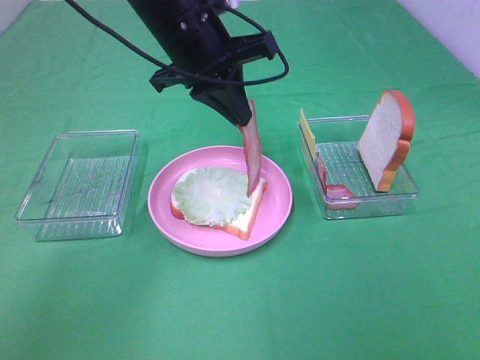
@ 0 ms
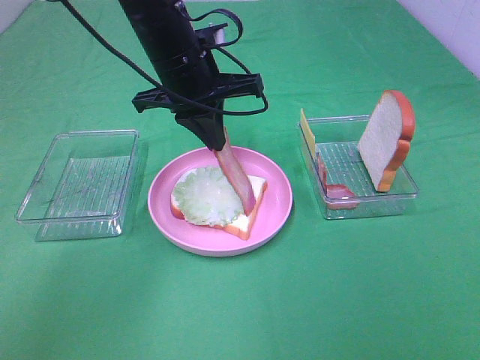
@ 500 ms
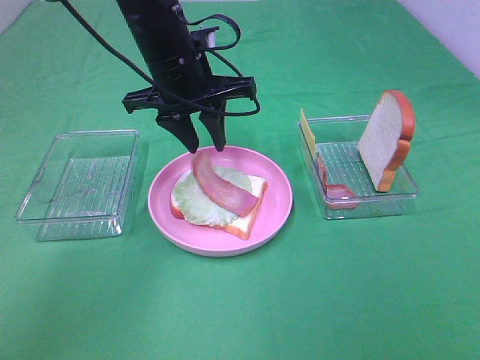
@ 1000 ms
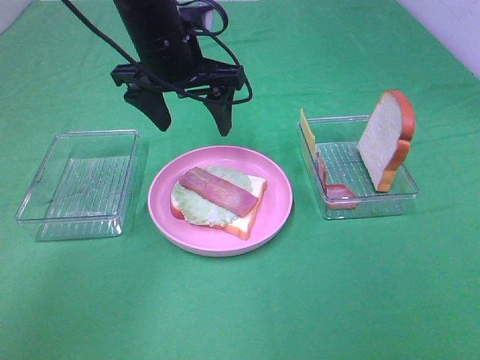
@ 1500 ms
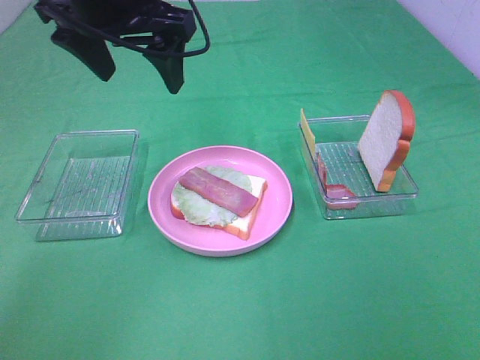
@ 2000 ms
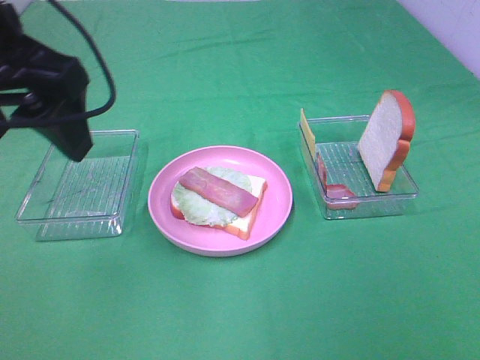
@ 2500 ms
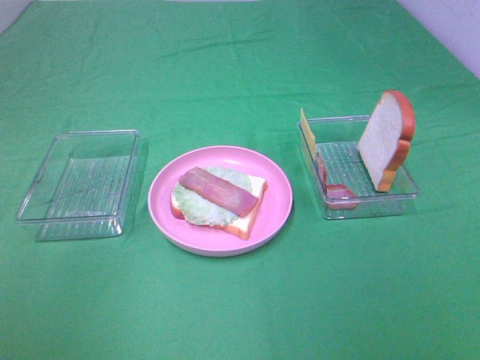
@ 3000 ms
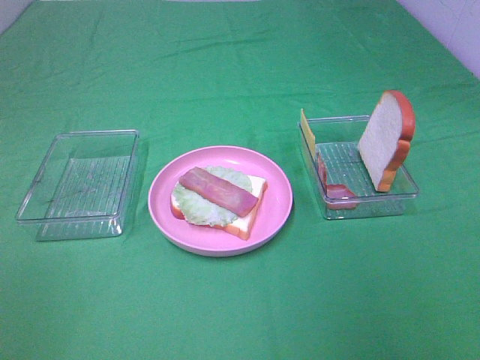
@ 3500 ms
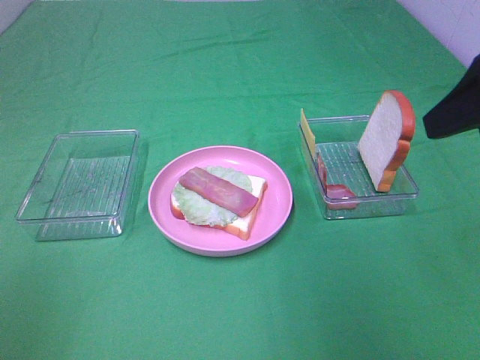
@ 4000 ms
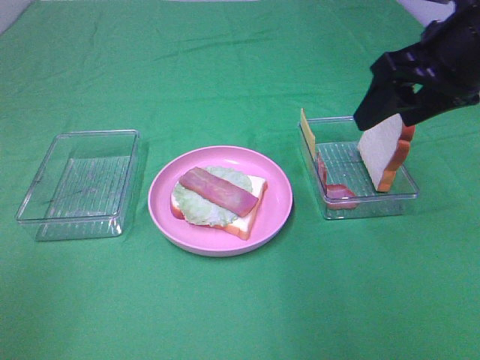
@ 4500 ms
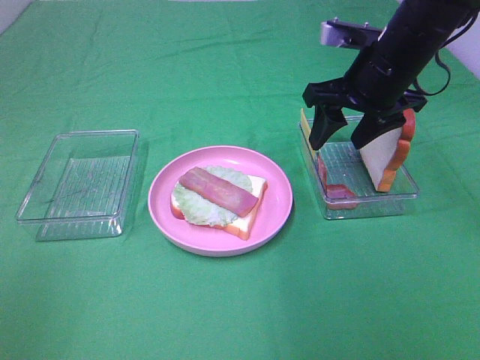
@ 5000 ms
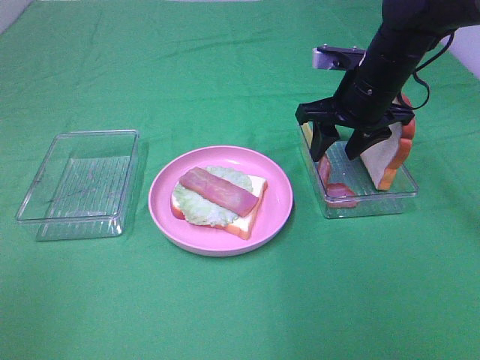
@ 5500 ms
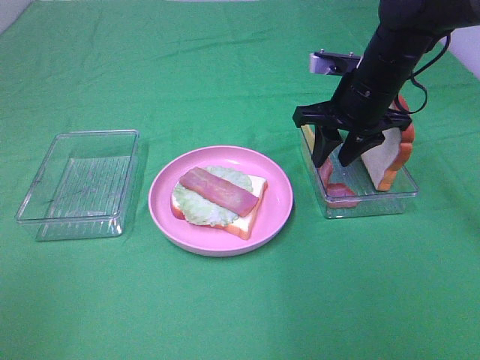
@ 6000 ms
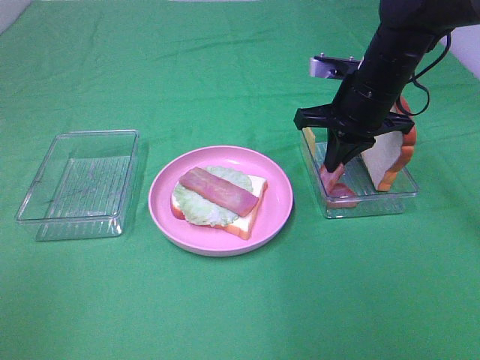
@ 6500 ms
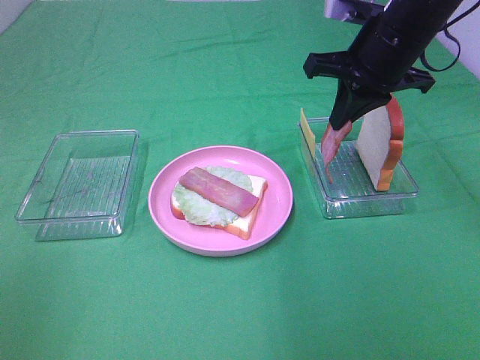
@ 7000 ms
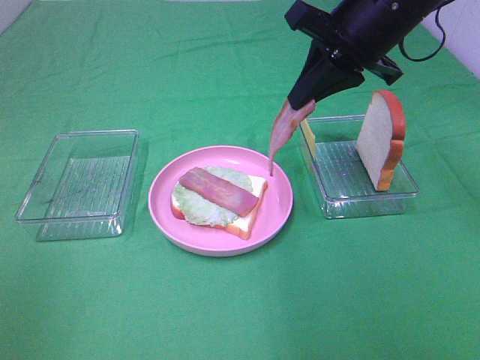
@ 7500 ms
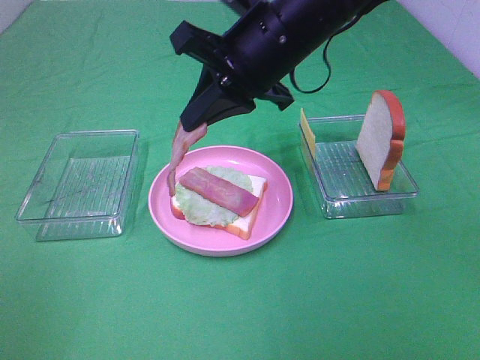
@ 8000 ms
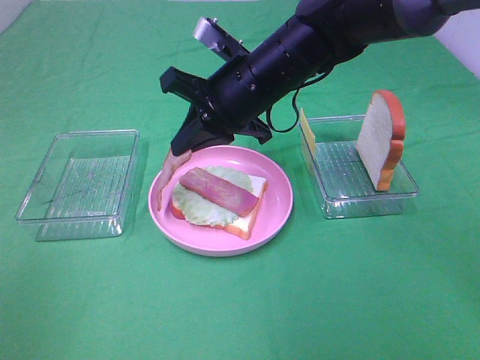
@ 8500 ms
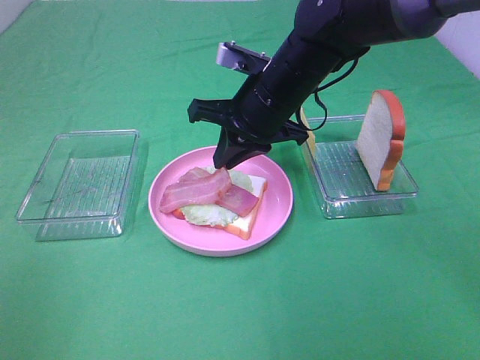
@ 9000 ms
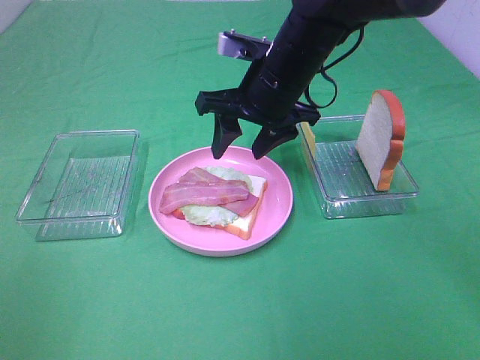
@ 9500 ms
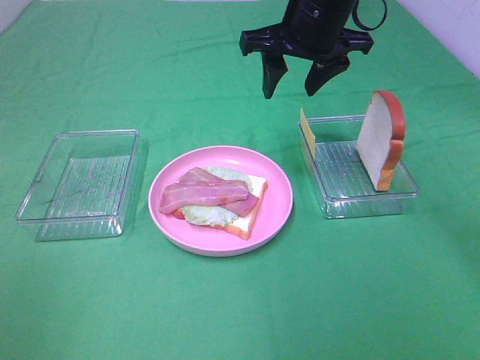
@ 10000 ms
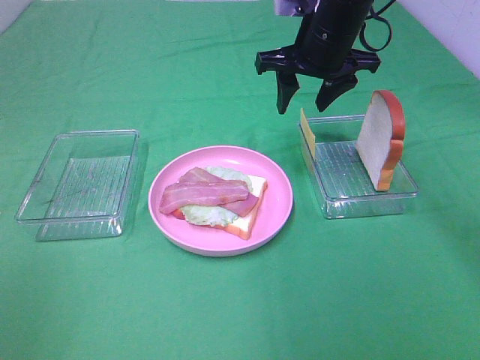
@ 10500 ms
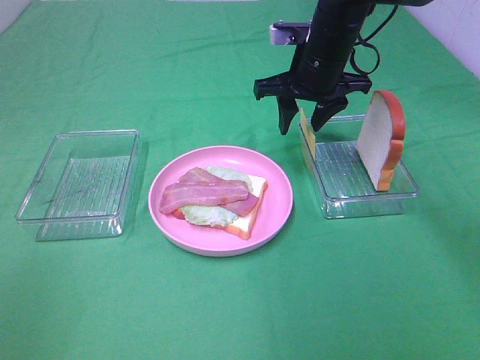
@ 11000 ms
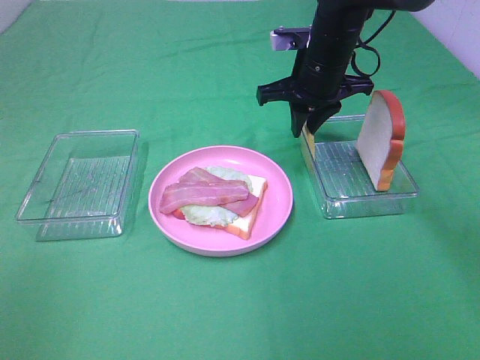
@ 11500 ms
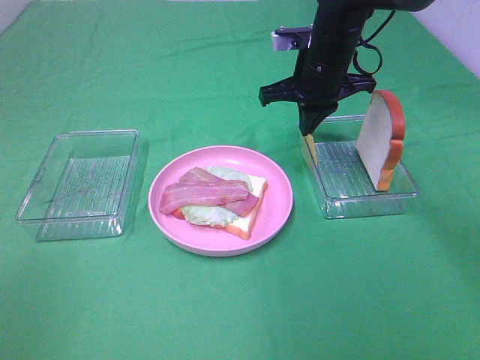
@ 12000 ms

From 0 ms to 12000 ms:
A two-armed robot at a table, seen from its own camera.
Task of the whole recording: Make sandwiches.
Step, from 1500 ms to 6500 ms: Right hand:grab the bacon.
Step, from 7000 ms to 9500 ms: Right hand:place bacon on bacon.
Step, from 10000 ms to 11500 ms: Right hand:grab the cheese slice.
From 0 ms to 2000 ms: The left gripper travels upward and to the left by about 10 cm, and opens.
From 2000 ms to 4000 ms: The right gripper heads forward, covering approximately 20 cm, while the left gripper moves backward and to the left, about 40 cm.
From 4000 ms to 6000 ms: The right gripper moves forward, downward and to the left, about 25 cm.
From 6000 ms to 8000 ms: The right gripper goes some 15 cm to the left, upward and backward, and closes.
From 8000 ms to 10000 ms: The right gripper is displaced forward and to the right by roughly 10 cm, moves approximately 10 cm downward and comes back, and opens up.
From 10000 ms to 12000 ms: The right gripper moves downward, about 10 cm, and closes its fingers.

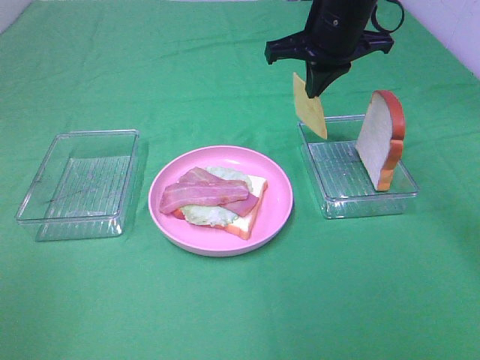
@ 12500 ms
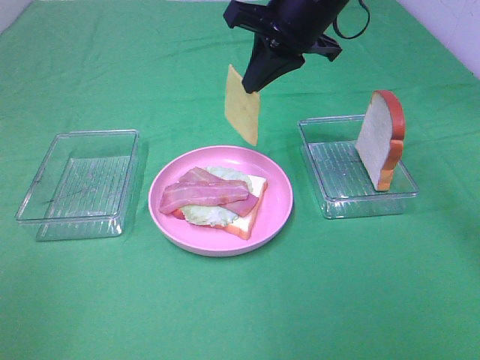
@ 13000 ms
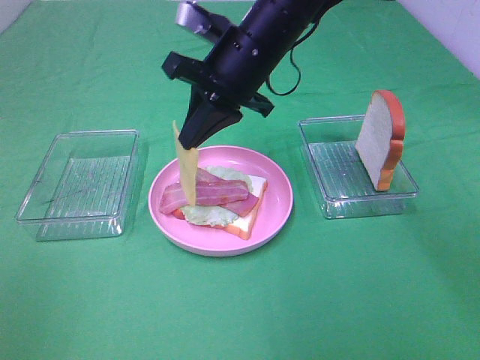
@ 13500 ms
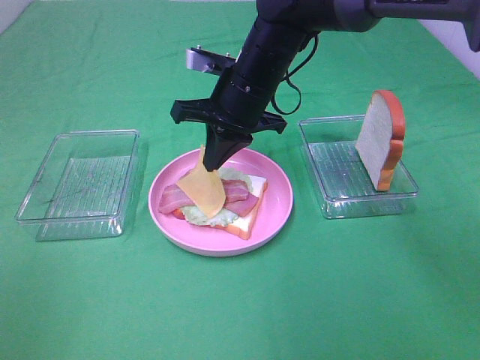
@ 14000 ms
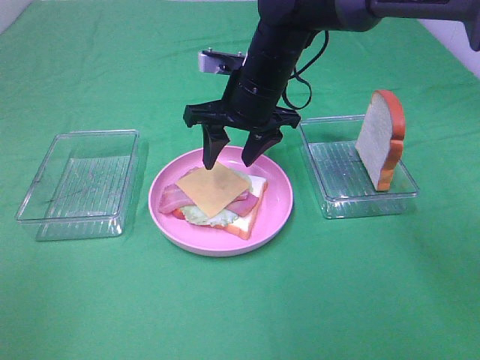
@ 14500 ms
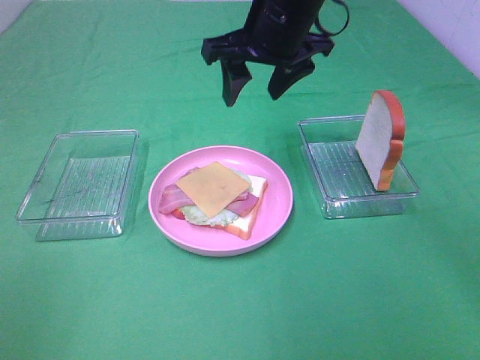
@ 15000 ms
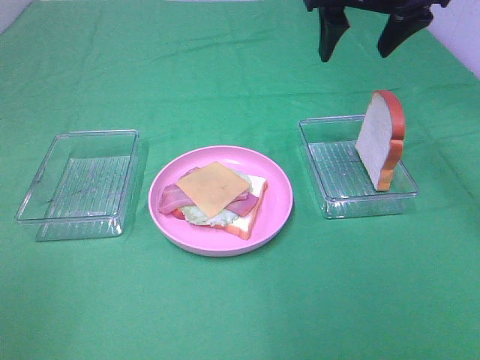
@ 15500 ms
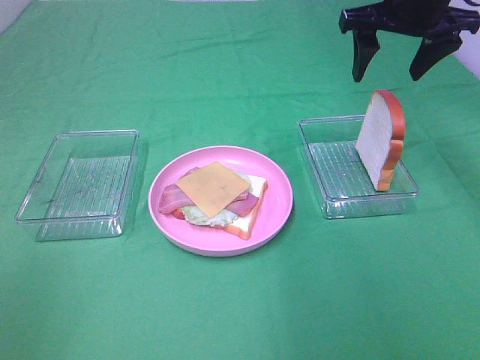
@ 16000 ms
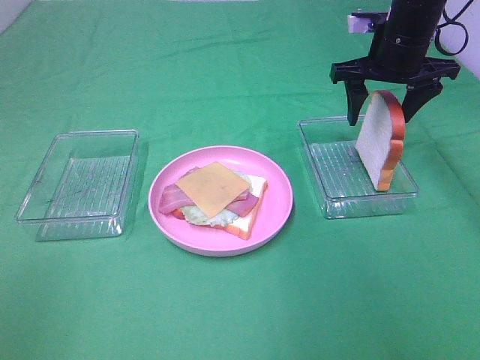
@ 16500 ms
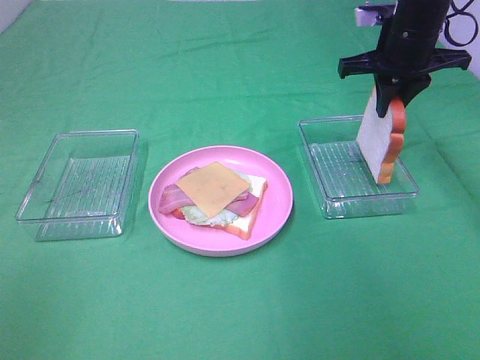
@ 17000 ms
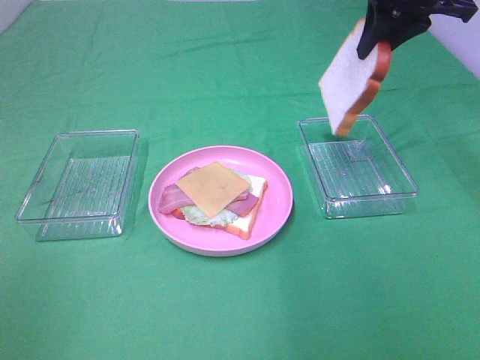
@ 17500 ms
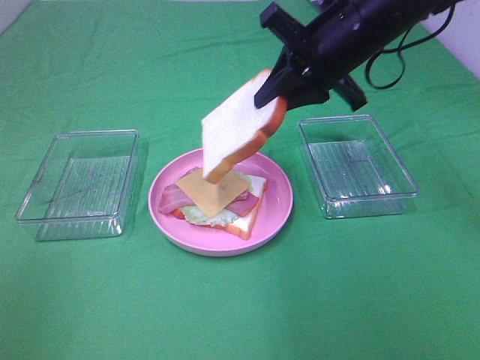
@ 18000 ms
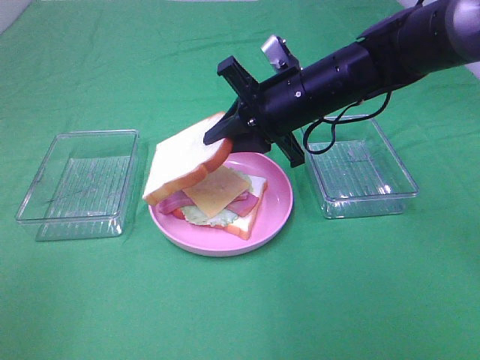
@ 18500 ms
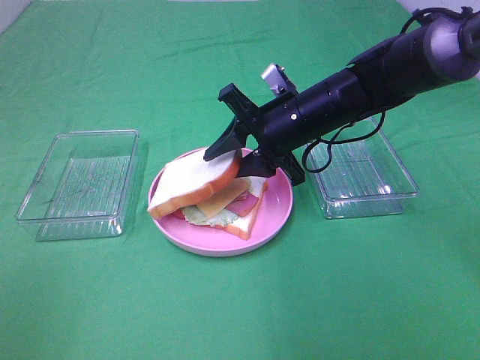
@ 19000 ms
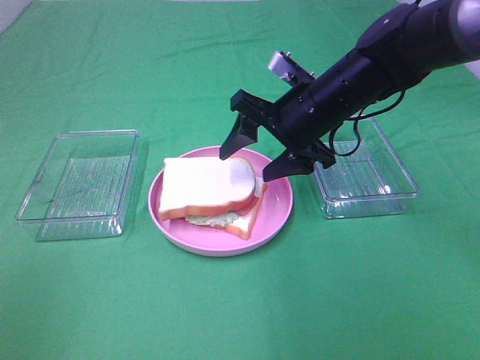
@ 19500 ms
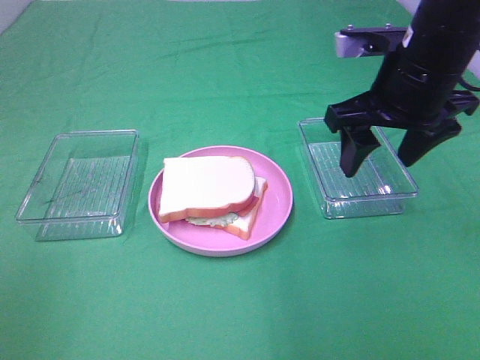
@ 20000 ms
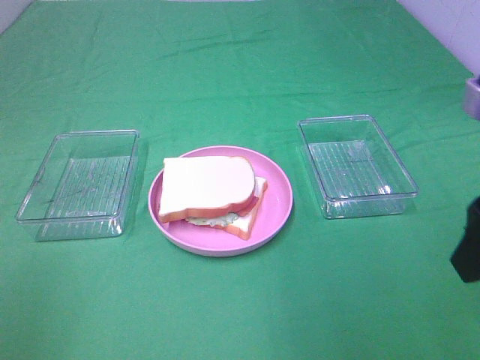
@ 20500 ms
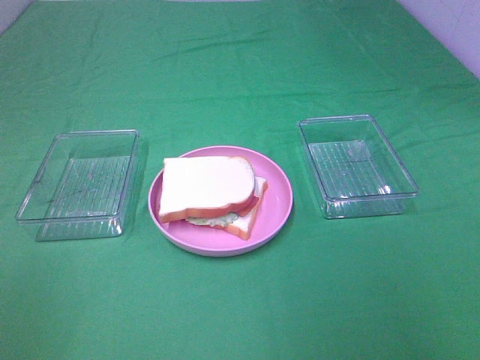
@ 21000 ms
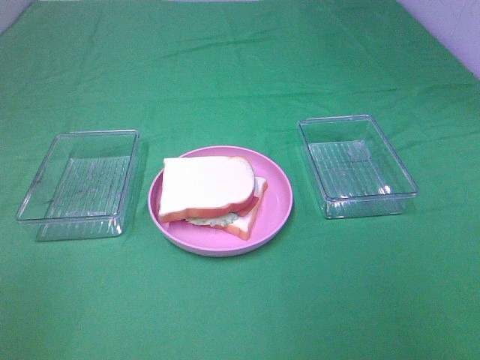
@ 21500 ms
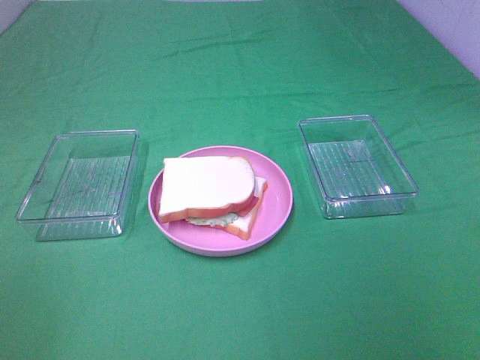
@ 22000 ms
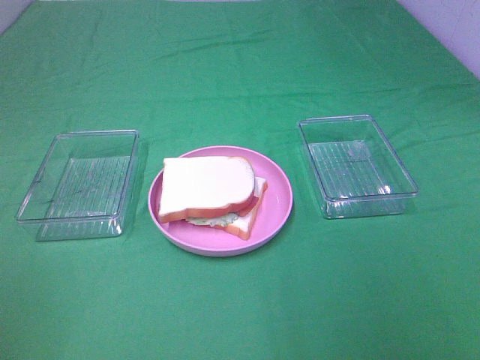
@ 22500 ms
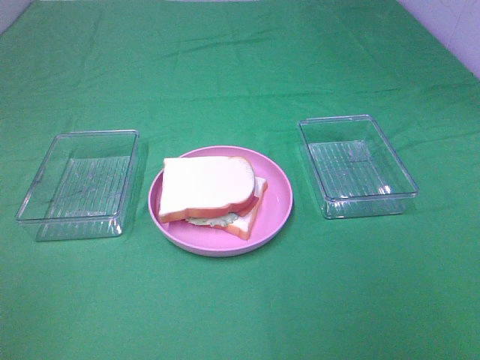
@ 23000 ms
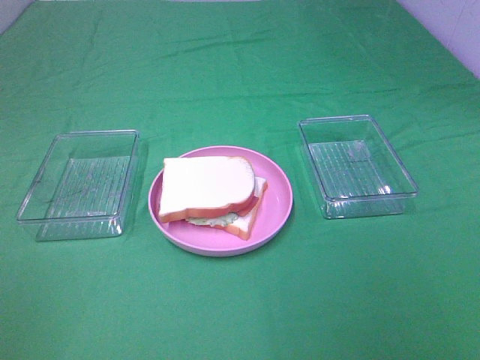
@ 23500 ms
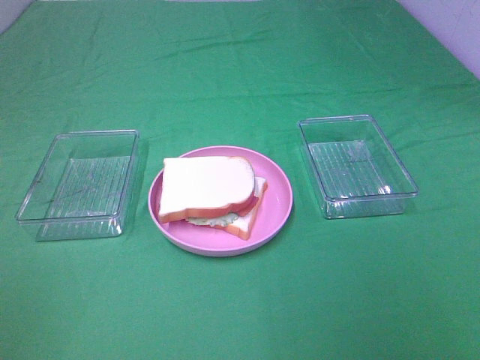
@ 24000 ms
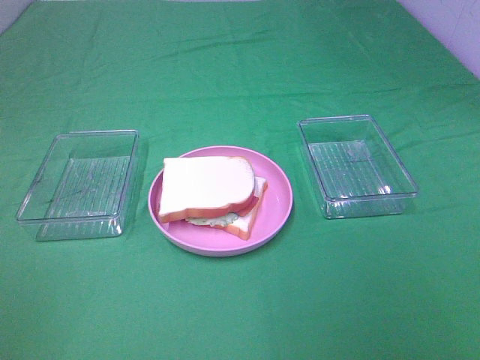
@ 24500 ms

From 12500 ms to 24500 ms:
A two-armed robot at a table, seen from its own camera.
Task of the whole recording: Make sandwiches.
Step, from 12500 ms to 14500 ms: Right hand:place the cheese slice on top of the bacon.
Step, from 15000 ms to 17000 ms: Right hand:grab the bread slice.
Step, from 17500 ms to 19500 ms: Right hand:place the bread slice on the cheese slice.
From 12500 ms to 14500 ms: The right gripper is displaced to the left and downward by about 10 cm, and opens.
From 14500 ms to 16500 ms: The right gripper goes approximately 20 cm to the right.
From 16500 ms to 18500 ms: The right gripper travels to the left and backward by approximately 15 cm, goes upward and returns, approximately 10 cm each way, and closes its fingers.
From 18500 ms to 20500 ms: The right gripper goes roughly 30 cm backward, to the right and upward, and opens.
From 20500 ms to 22500 ms: The right gripper travels backward and to the right by roughly 15 cm.

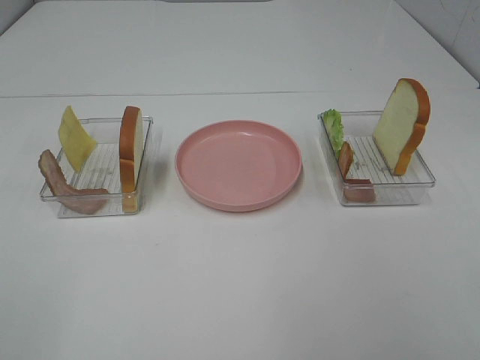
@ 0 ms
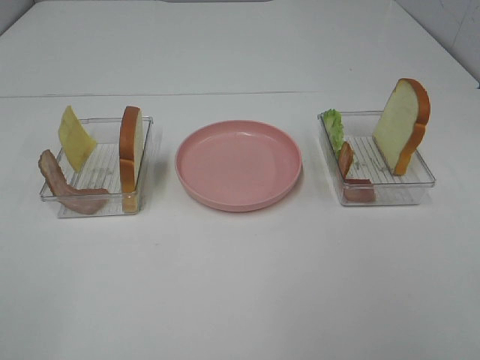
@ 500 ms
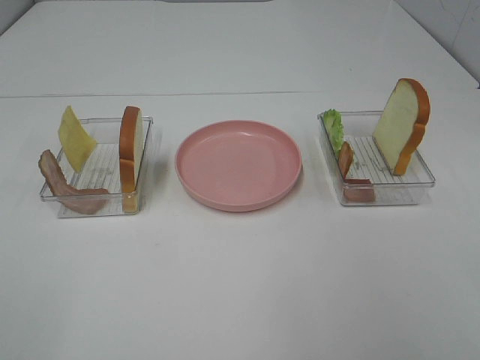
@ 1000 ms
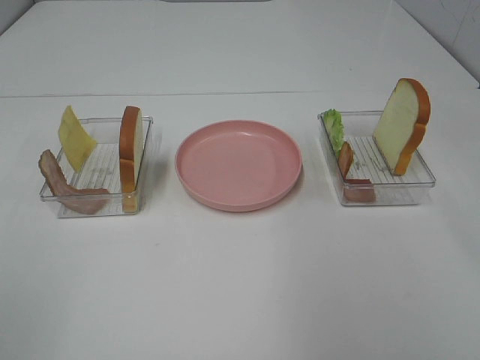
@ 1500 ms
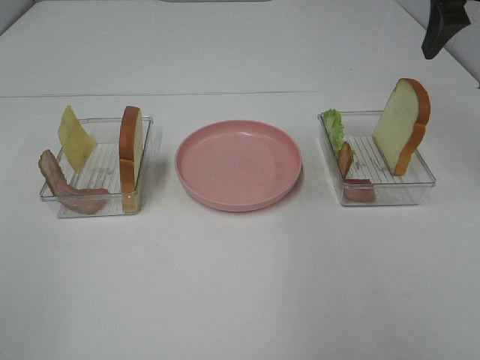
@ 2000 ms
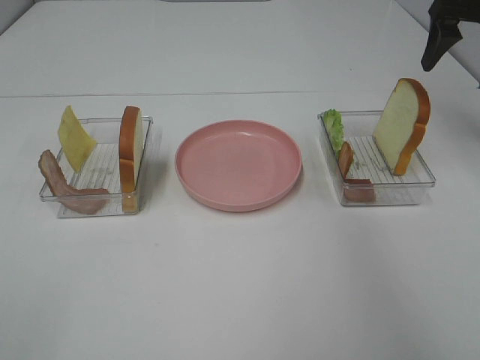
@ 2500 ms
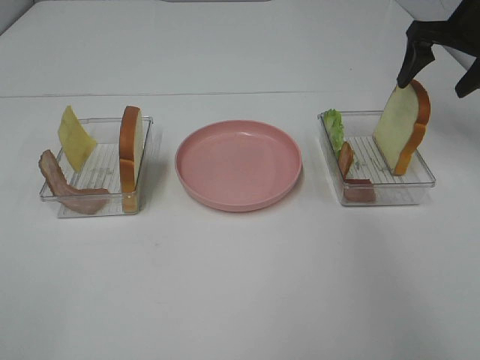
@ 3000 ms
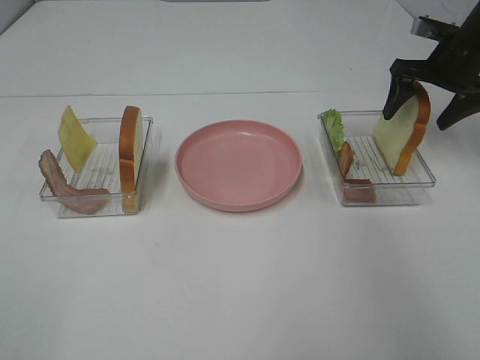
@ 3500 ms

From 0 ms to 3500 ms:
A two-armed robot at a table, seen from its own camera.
Task of the whole recording: Make sandwiches.
From 0 ms to 2000 ms: The right gripper moves forward, approximately 35 cm.
From 2000 ms to 3500 ms: The right gripper moves downward and forward, about 20 cm.
